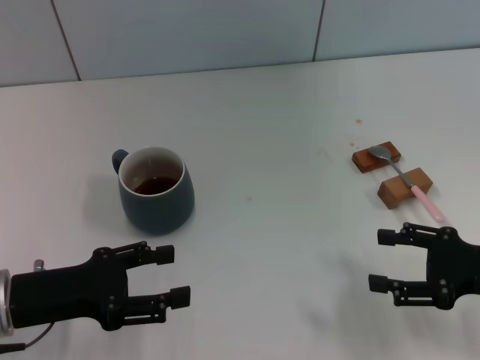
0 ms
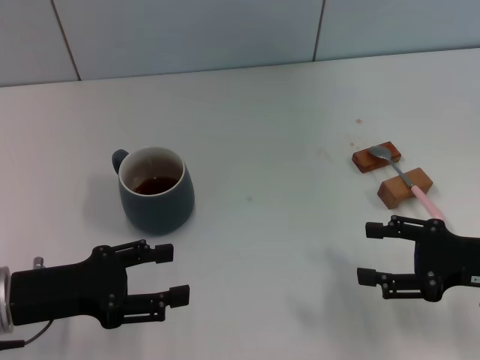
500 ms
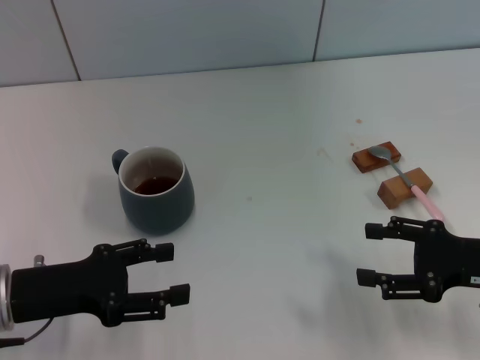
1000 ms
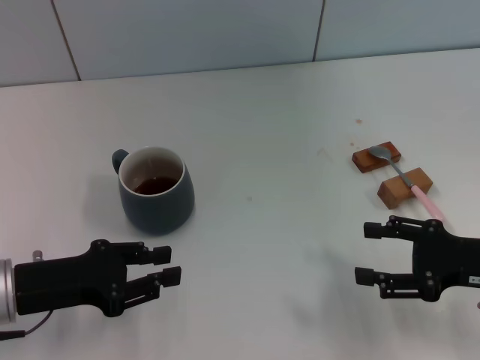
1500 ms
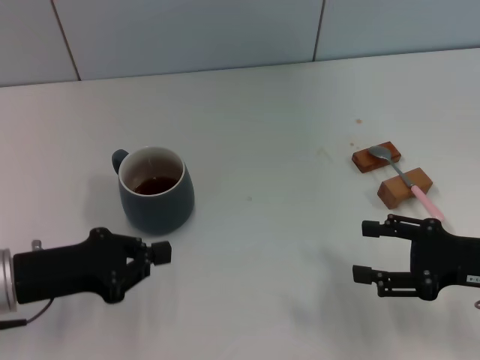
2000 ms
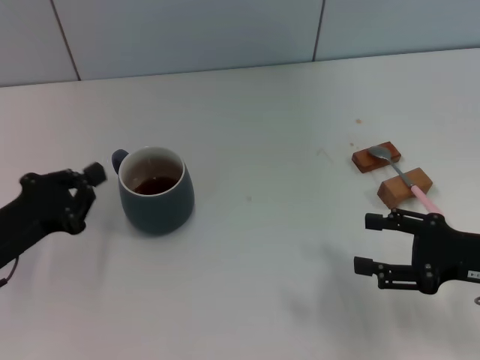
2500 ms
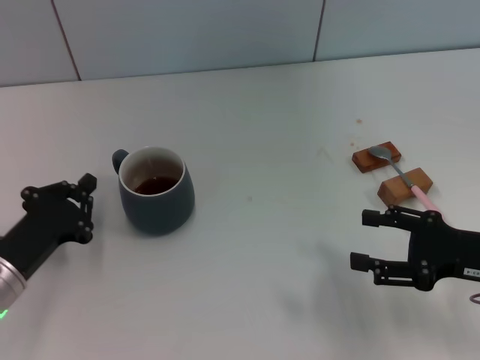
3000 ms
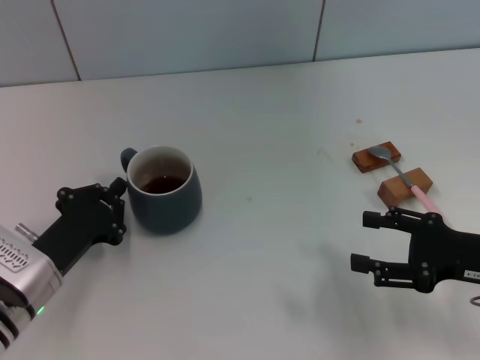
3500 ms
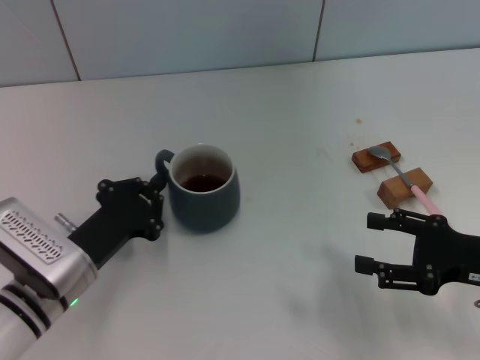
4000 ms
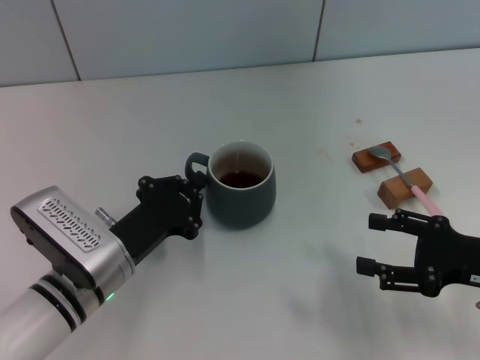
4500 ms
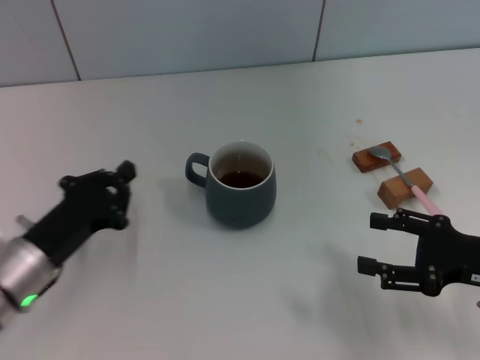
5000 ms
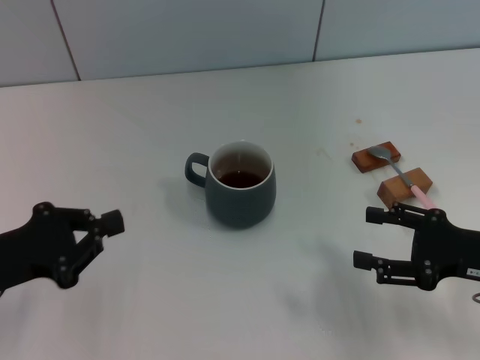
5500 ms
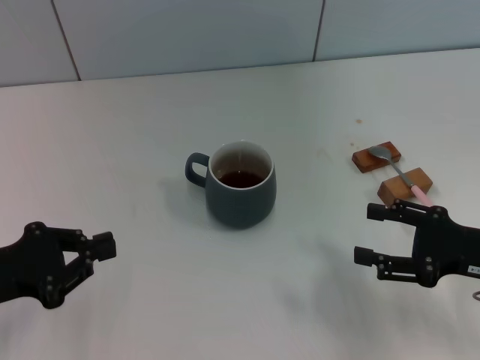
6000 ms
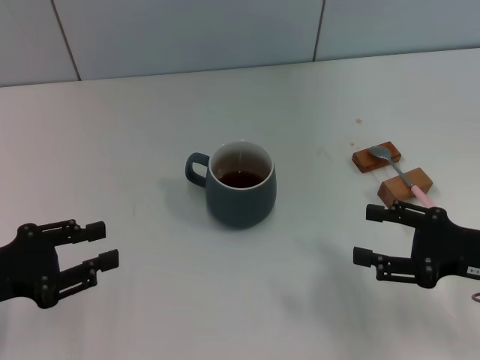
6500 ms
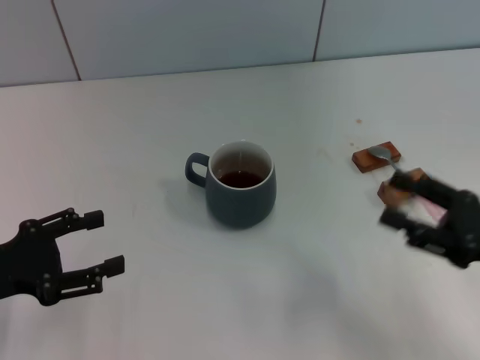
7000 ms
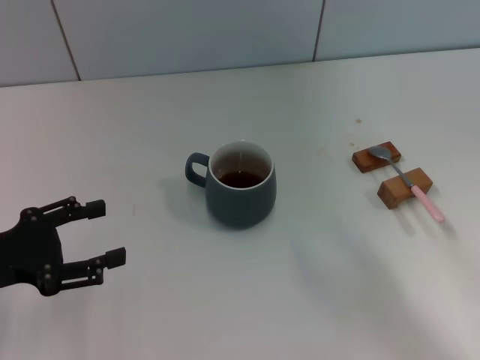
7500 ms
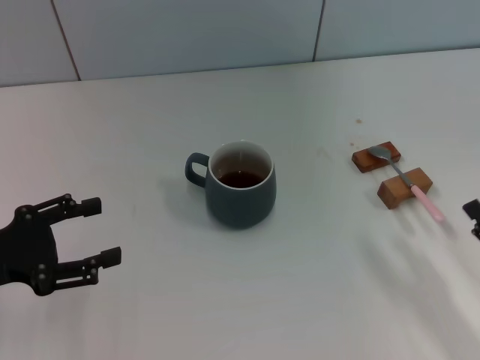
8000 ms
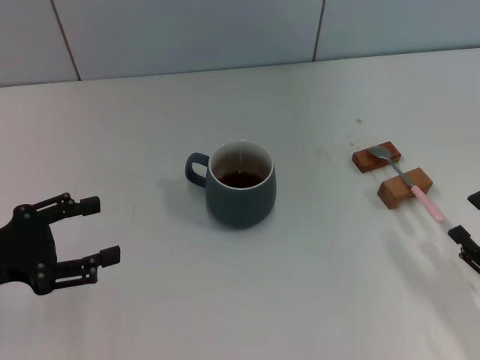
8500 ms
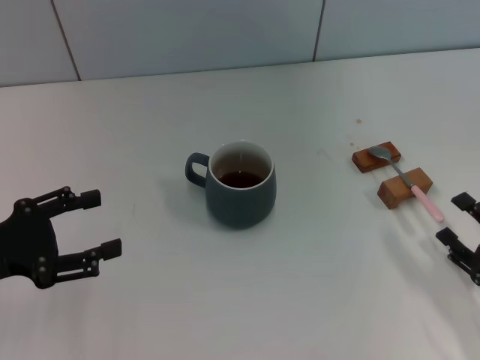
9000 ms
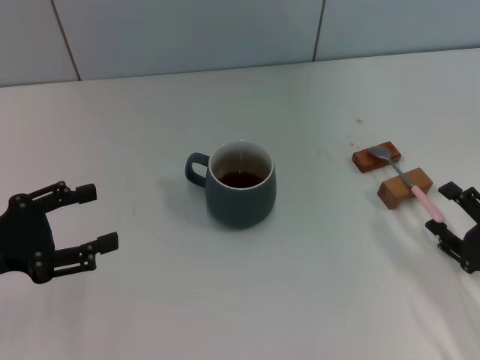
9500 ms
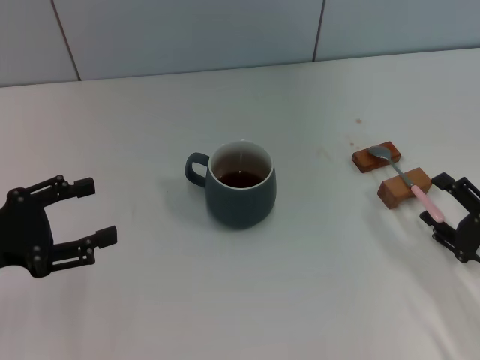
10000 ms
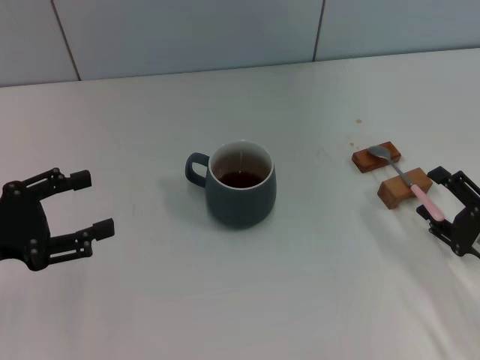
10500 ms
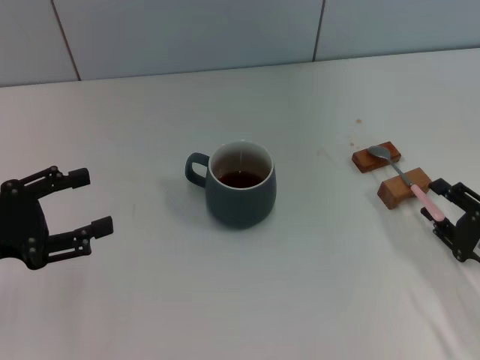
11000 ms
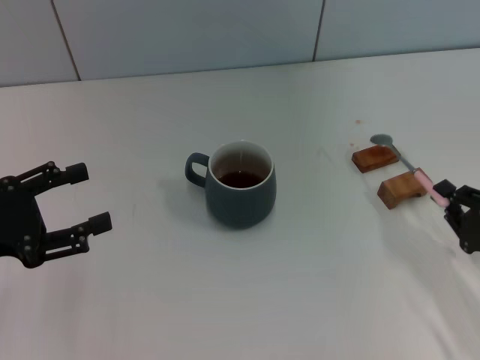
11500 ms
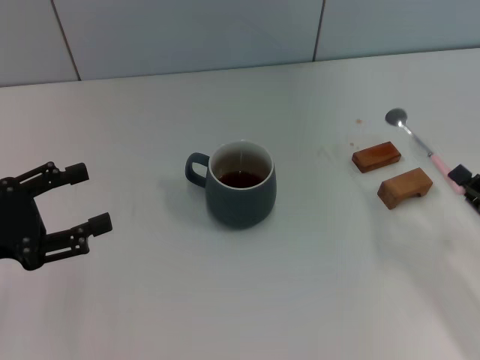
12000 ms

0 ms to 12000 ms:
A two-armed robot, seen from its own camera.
Task of the whole recording: Move the grey cup to the center, lift the pink spoon, stir it three times in the cup, and put the spoon into the cup.
Step, 0 ms to 4500 ms: Move the cup with coffee to the center of view with the left gripper.
0 ms to 2000 ms: The left gripper closes.
2000 ms to 4000 ms: The left gripper shifts about 10 cm to the right and downward.
4000 ms to 6000 ms: The left gripper shifts approximately 15 cm to the left and upward.
6000 ms to 8000 ms: The left gripper opens up; the right gripper heads backward, covering about 10 cm.
8000 ms to 10000 ms: The right gripper shifts by approximately 5 cm.
10000 ms to 12000 ms: The right gripper closes.

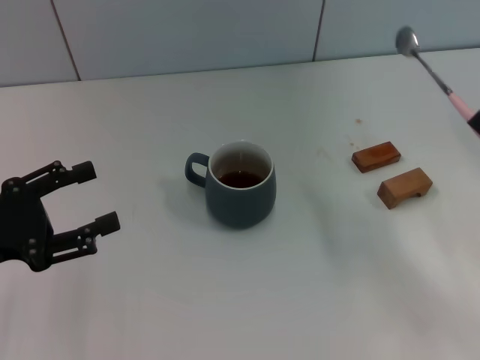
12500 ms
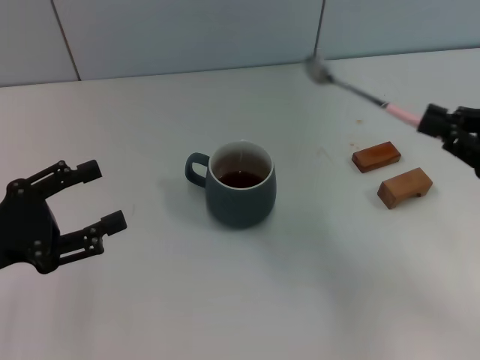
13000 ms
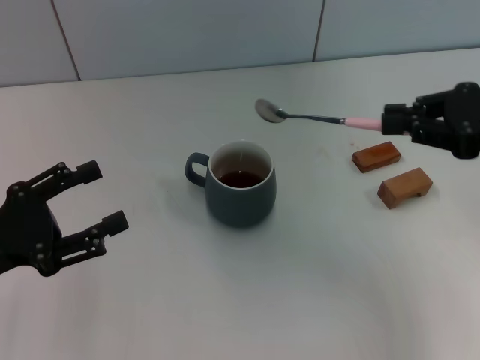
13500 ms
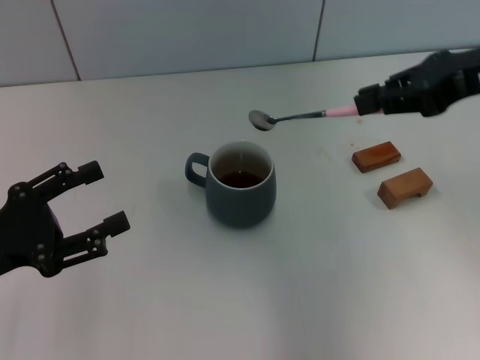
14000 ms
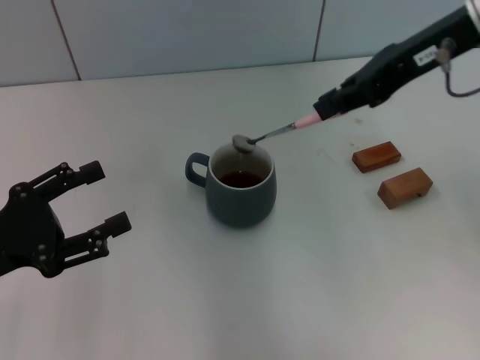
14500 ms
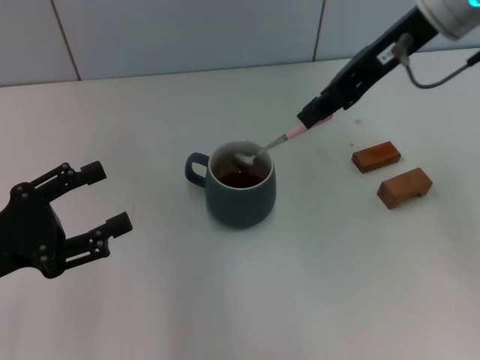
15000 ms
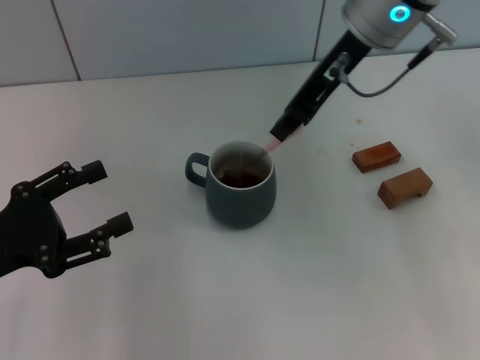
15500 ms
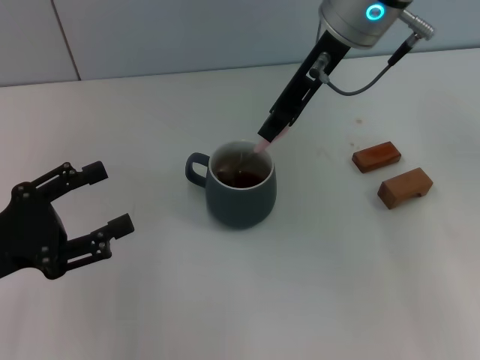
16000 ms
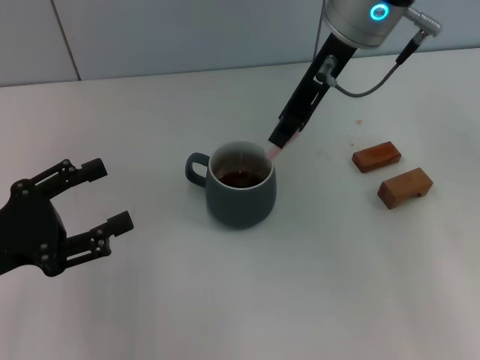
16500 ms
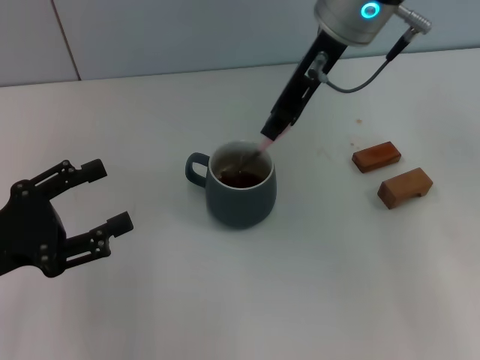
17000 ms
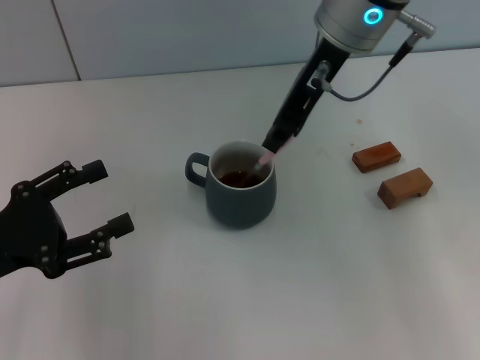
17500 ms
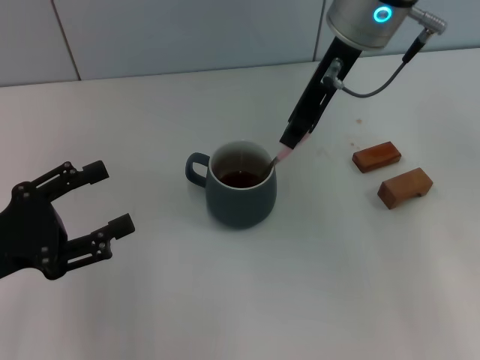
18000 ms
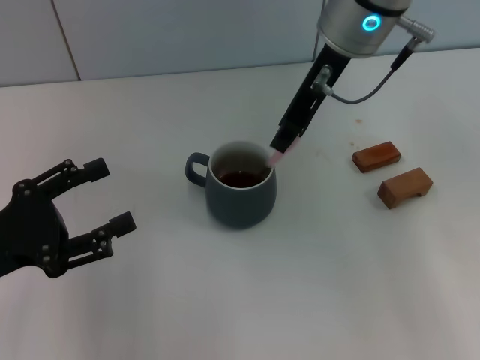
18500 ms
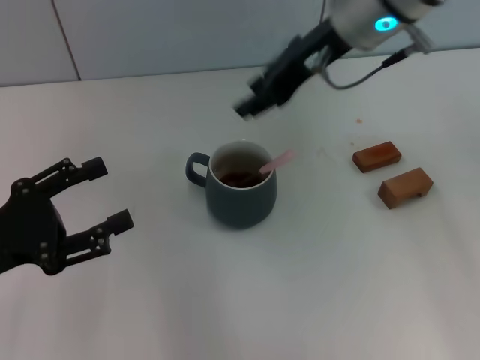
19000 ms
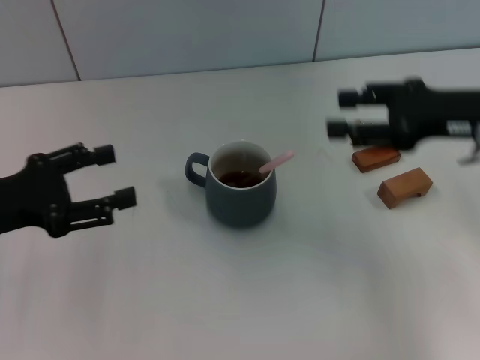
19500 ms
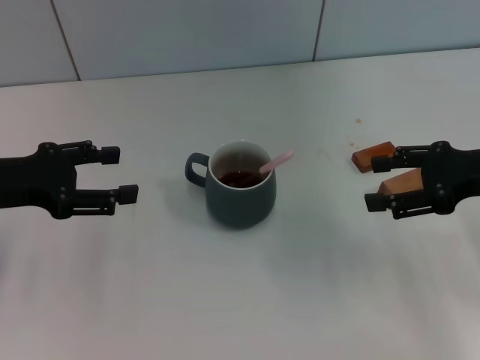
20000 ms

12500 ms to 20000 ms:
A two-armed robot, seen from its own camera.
Task of the whole recording: Move the grey cup to the center, lift the pink spoon, stir it three times in the cup, and put the spoon into the cup.
Step, 12500 ms to 19000 ms: Stir the coffee in the cup with the right gripper.
12500 ms to 14500 ms: The right gripper goes roughly 30 cm upward, forward and to the left.
14500 ms to 16500 ms: The right gripper goes roughly 10 cm to the left.
16500 ms to 18000 ms: Both grippers stay put.
18000 ms to 20000 ms: The left gripper travels forward by some 10 cm, while the right gripper is displaced to the right, downward and backward by approximately 25 cm, and opens its fingers.

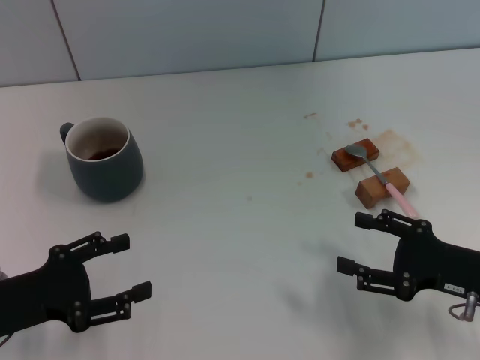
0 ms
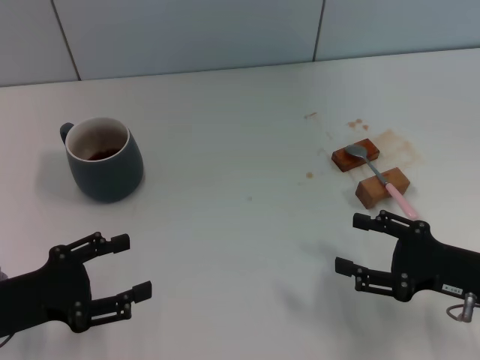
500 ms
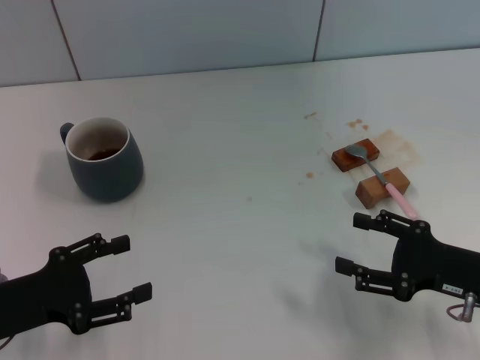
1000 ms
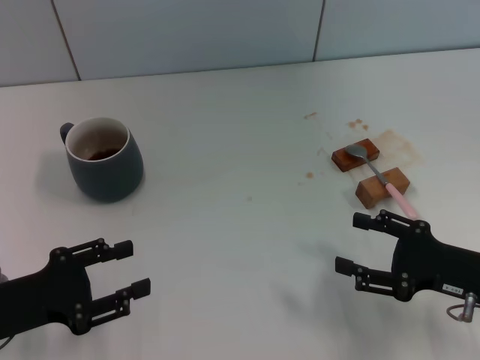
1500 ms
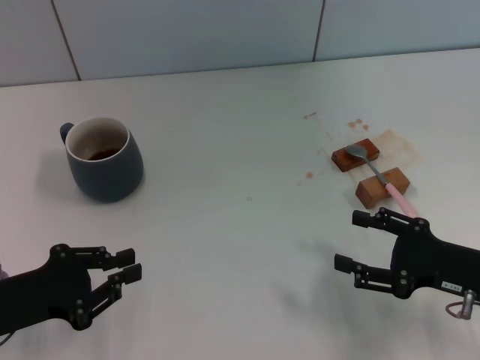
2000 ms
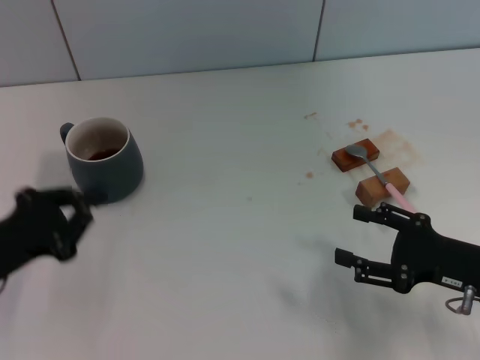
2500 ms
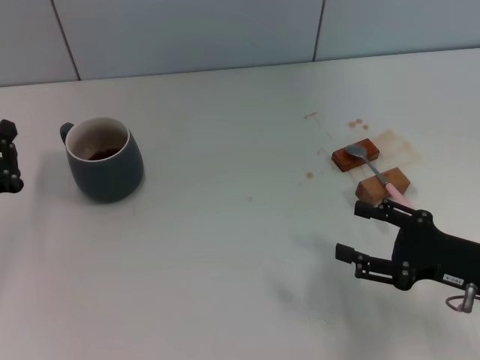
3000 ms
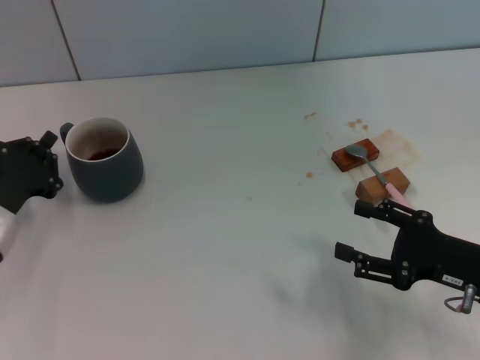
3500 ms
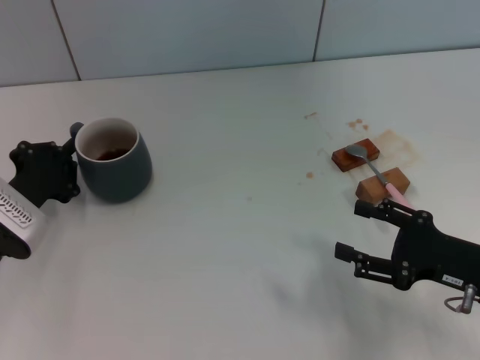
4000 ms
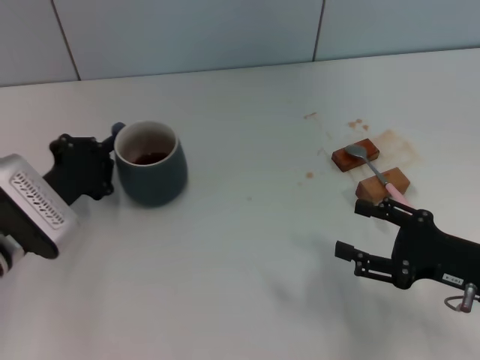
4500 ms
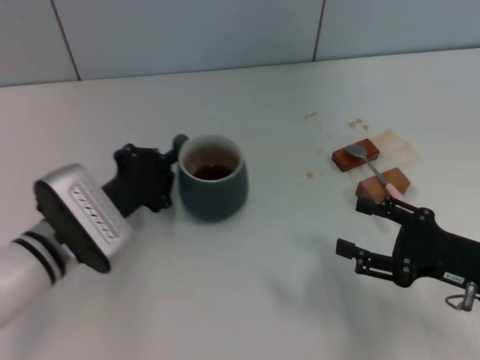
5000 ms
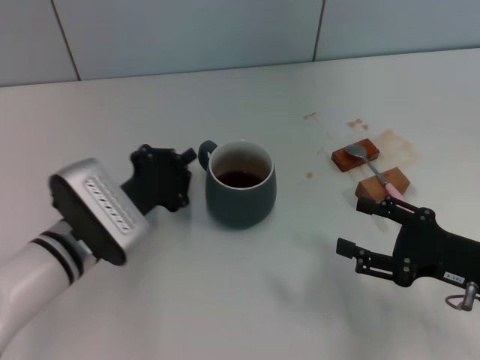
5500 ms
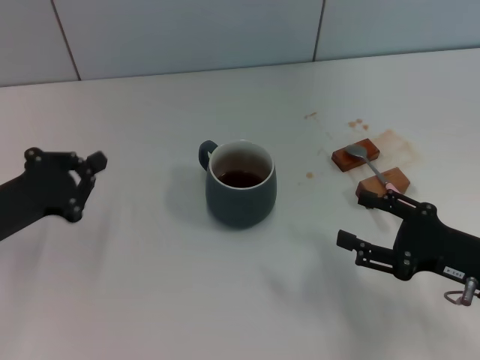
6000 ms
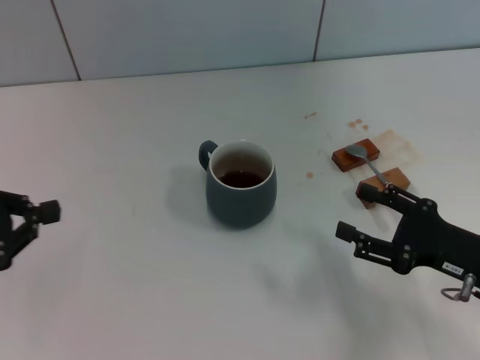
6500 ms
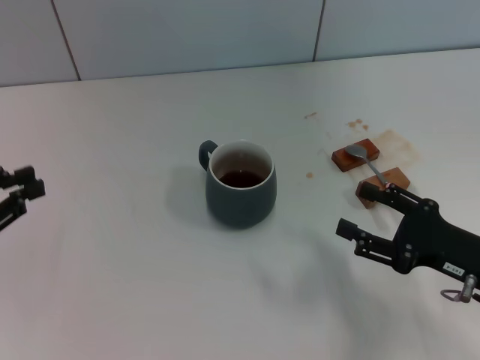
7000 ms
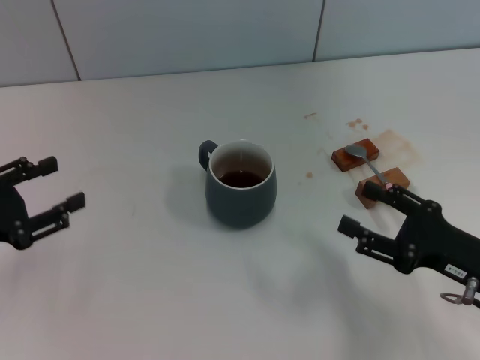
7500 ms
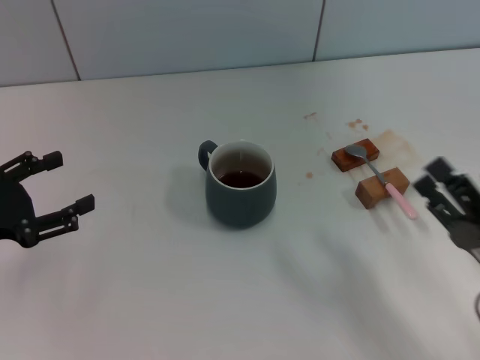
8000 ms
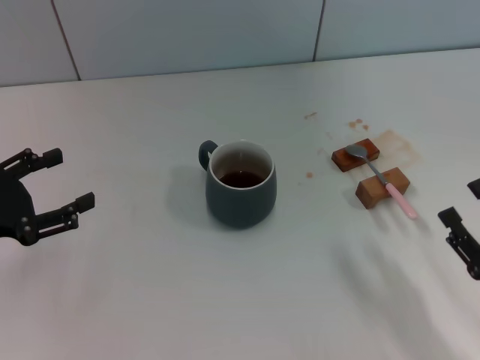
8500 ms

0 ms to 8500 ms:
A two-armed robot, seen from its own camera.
Task of the whole recording: Move the grey cup to the center, lift the pink spoon, stir it three times in the cup, and put the spoon into the cup.
Step, 0 ms to 5500 ms: Move the cup with coffee to the center of view with the left gripper.
0 ms to 2000 ms: The left gripper closes up.
2000 ms to 4000 ms: The left gripper moves forward, about 10 cm, and closes its fingers.
4000 ms to 6500 ms: The left gripper moves to the left and upward, approximately 10 cm.
6500 ms to 8500 ms: The right gripper goes about 10 cm backward, while the left gripper opens.
